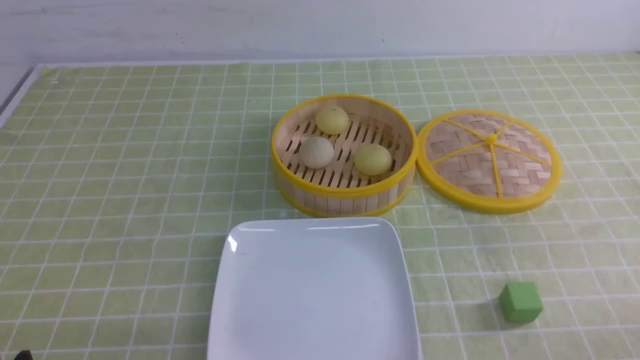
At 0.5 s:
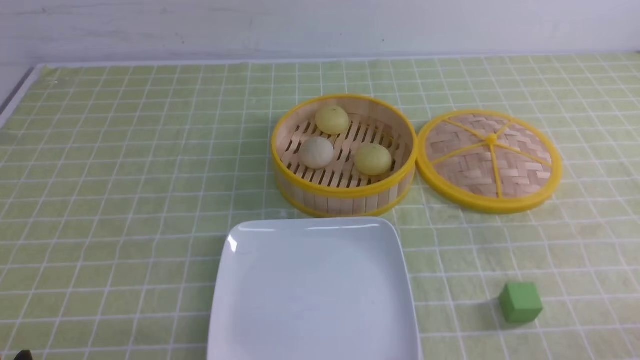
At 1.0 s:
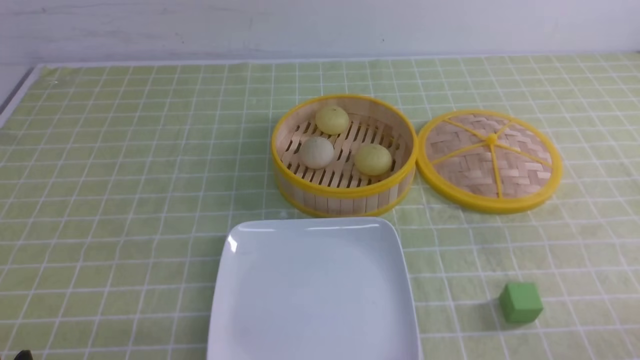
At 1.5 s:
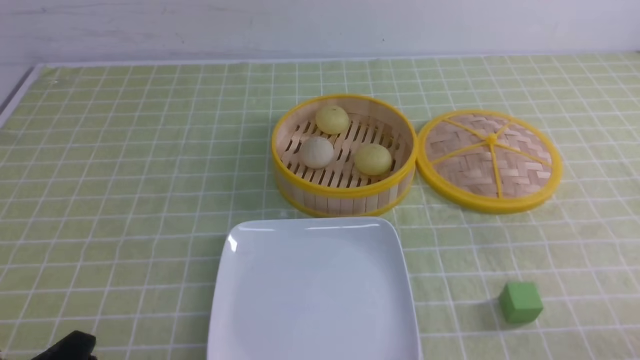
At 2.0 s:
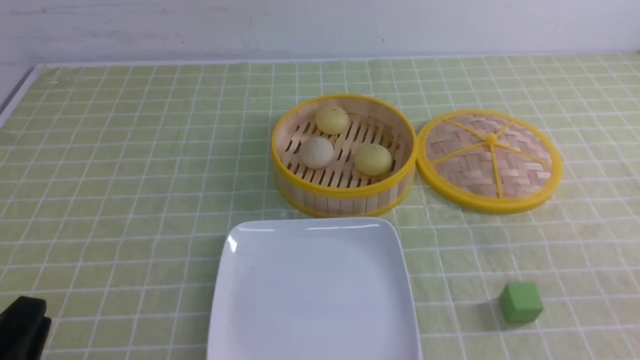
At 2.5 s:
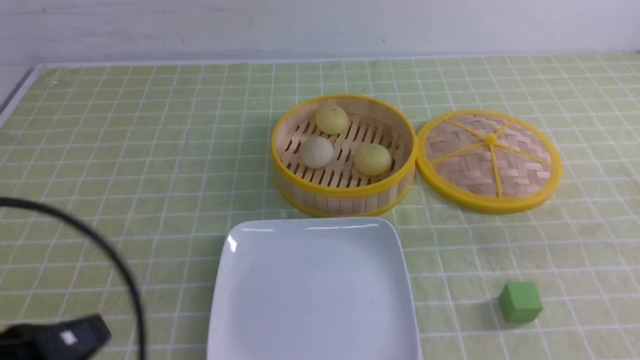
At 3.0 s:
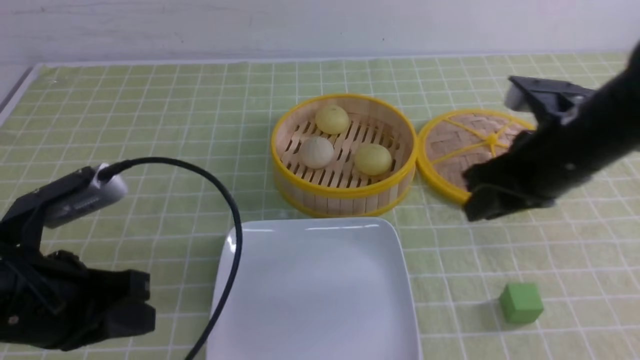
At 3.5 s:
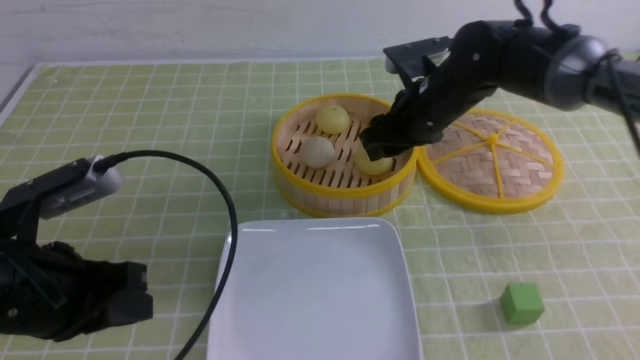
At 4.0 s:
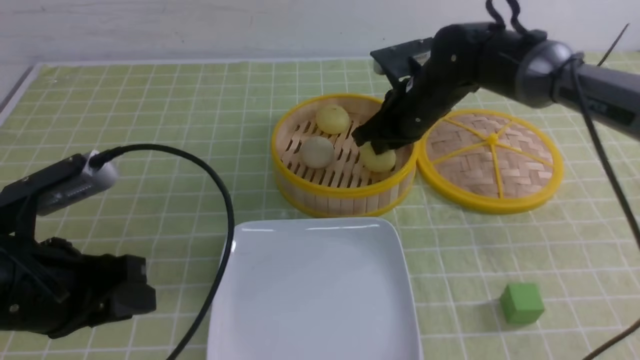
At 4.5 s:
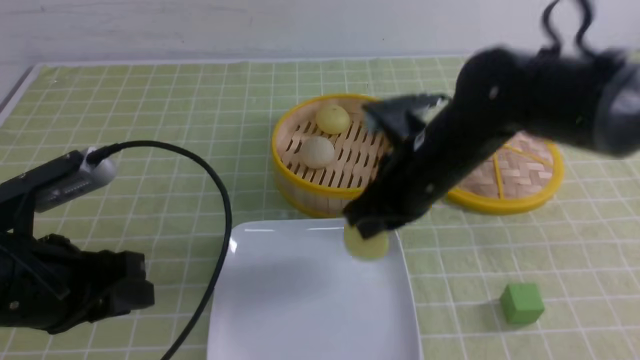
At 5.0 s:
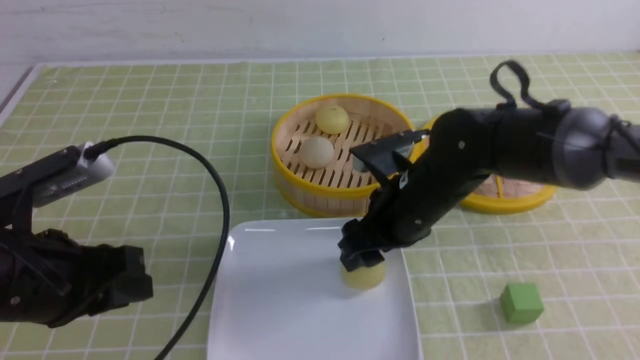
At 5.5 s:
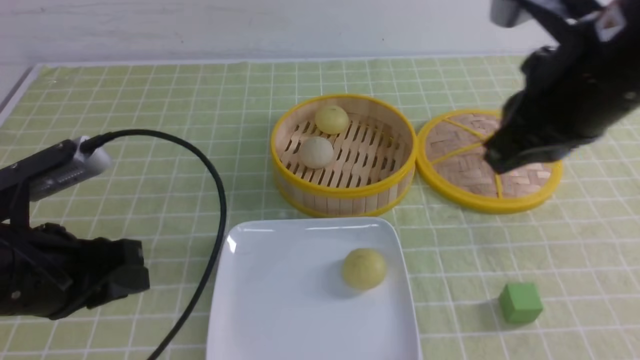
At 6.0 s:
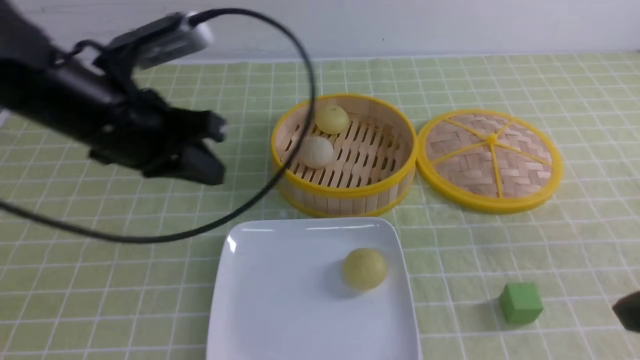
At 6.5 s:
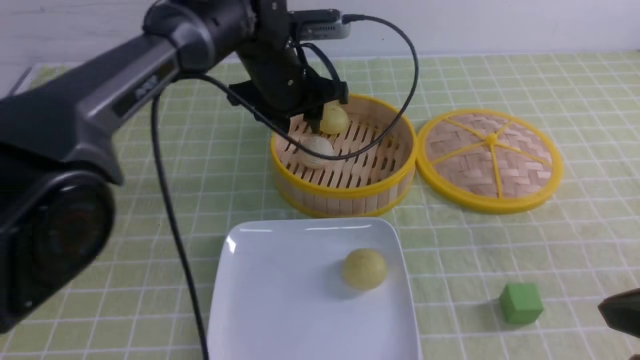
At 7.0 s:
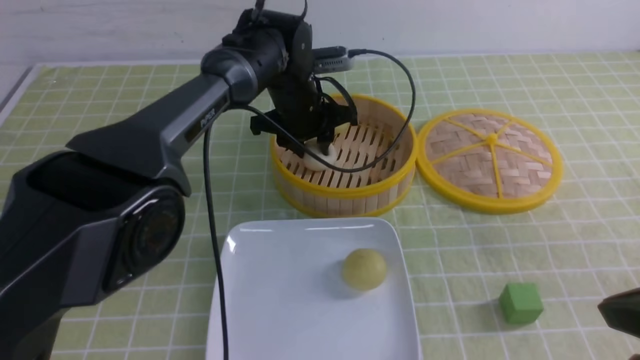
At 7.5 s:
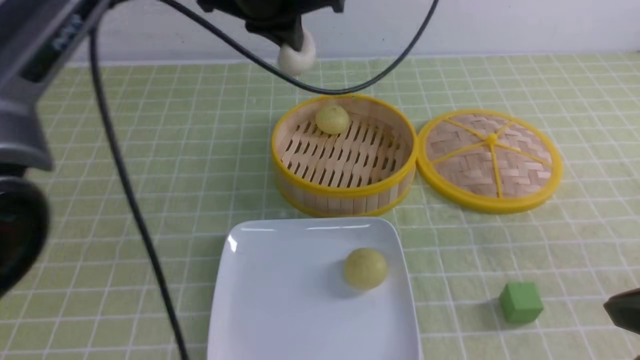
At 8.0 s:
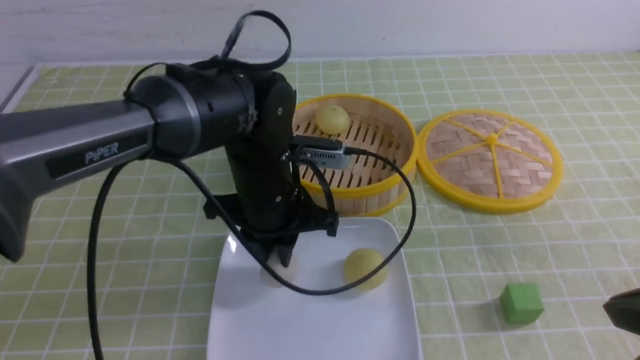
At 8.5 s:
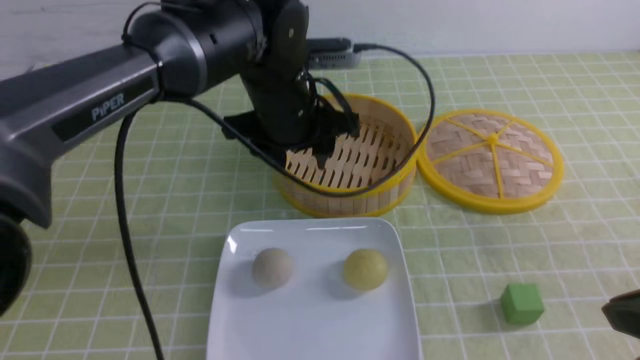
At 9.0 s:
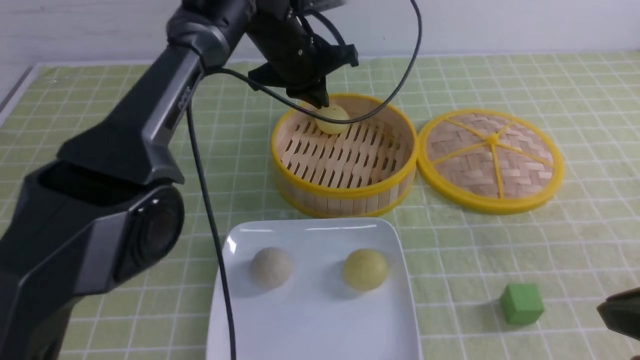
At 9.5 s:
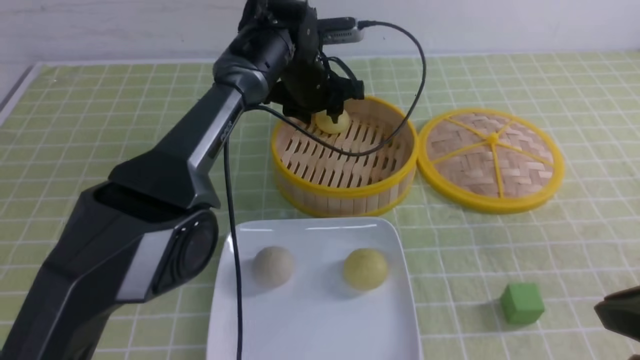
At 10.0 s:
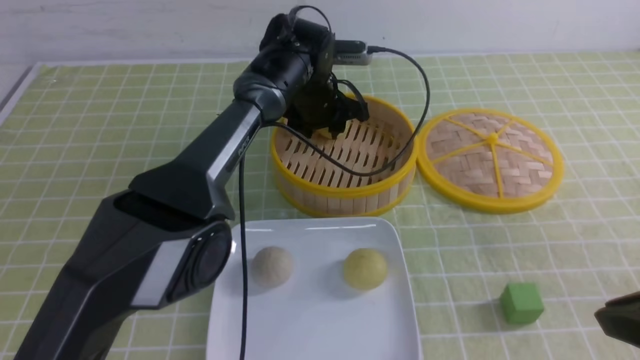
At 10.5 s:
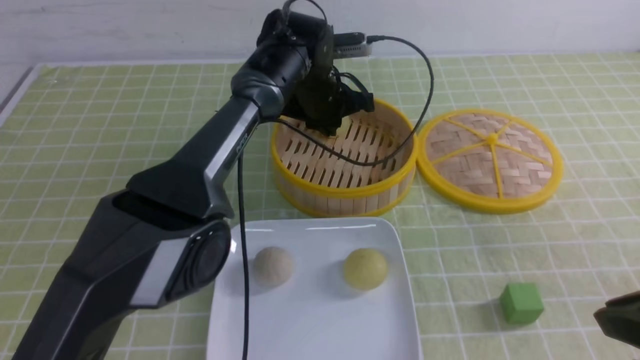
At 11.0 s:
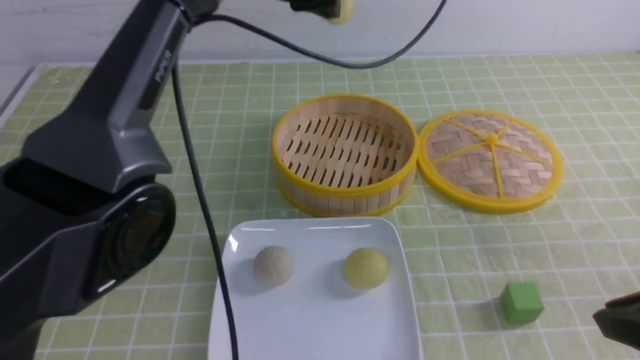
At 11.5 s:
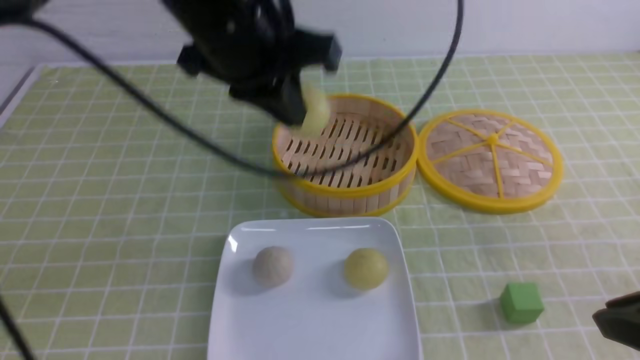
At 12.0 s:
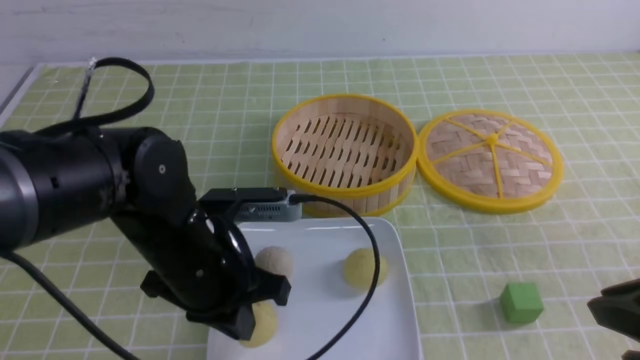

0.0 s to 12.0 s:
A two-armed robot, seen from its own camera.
Step, 0.0 to 3.5 s: use the right arm to grab the steamed stuffed bun that is closest to it.
Step, 4.0 to 4.5 s: use the right arm to put the steamed stuffed bun into the plate.
Step, 5.0 to 7.0 s: use the left arm to grab the steamed stuffed bun that is closest to it.
Step, 7.5 to 8.0 s: use the left arm to put the steamed stuffed bun into the plate.
Step, 8.5 to 10.0 s: use the left arm to grab the steamed stuffed bun that is closest to it.
2.0 to 4.0 s: The right gripper moves forward and to the left, about 40 cm, and opens, then closes once more, while the left gripper heads forward and upward, covering some 15 cm, and closes, then opens again.
4.0 to 6.0 s: The left gripper moves forward, to the right and upward, some 15 cm, and closes up. Meanwhile the right gripper shifts approximately 35 cm backward and to the right, and opens, then closes again.
6.0 to 8.0 s: The left gripper heads to the right and downward, covering about 15 cm, goes forward and returns, about 15 cm each way, and opens its fingers.
8.0 to 10.0 s: The left gripper moves forward, roughly 20 cm.
10.0 to 12.0 s: The left gripper moves backward and to the left, roughly 30 cm, and closes up.

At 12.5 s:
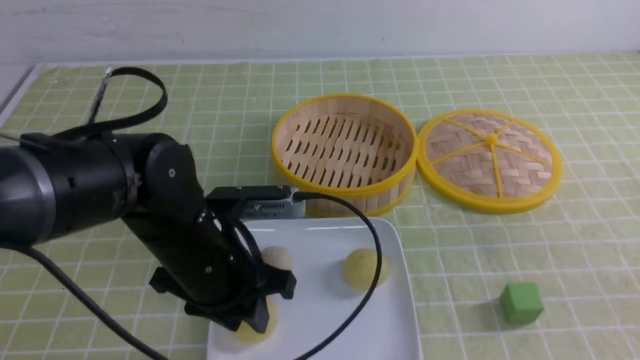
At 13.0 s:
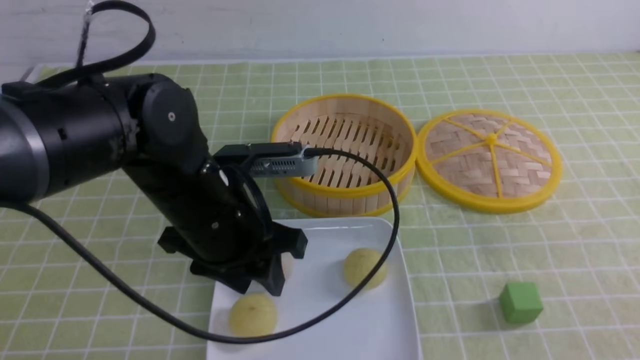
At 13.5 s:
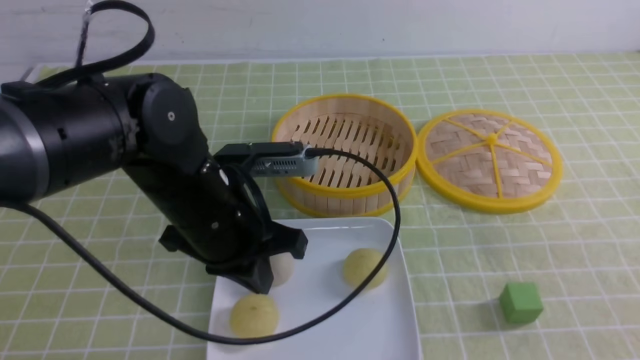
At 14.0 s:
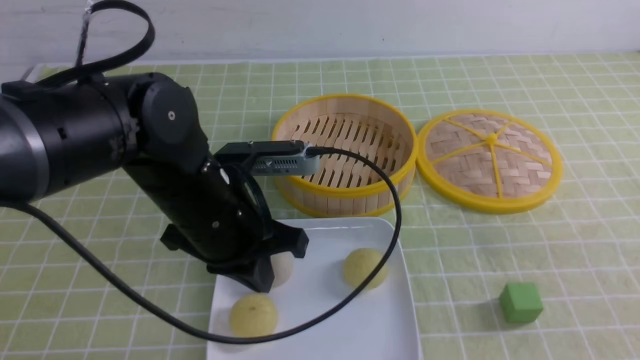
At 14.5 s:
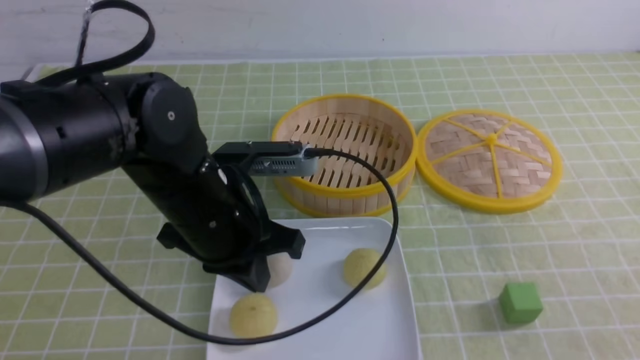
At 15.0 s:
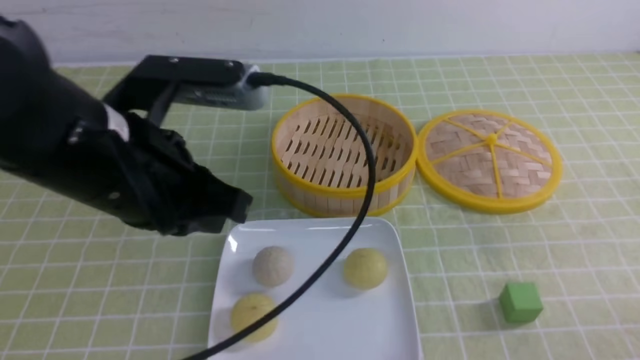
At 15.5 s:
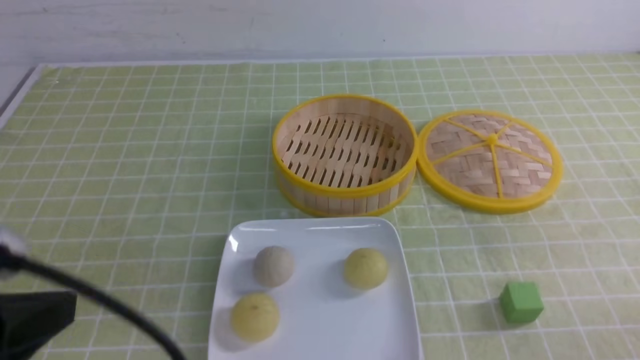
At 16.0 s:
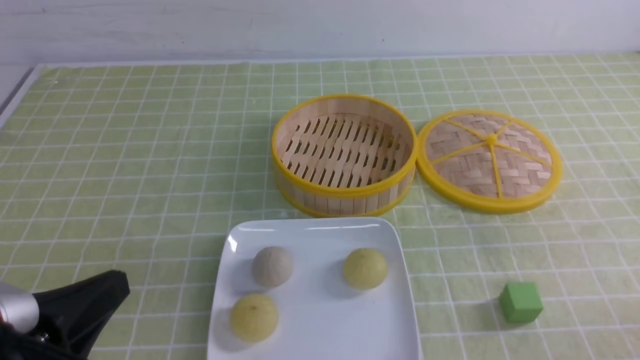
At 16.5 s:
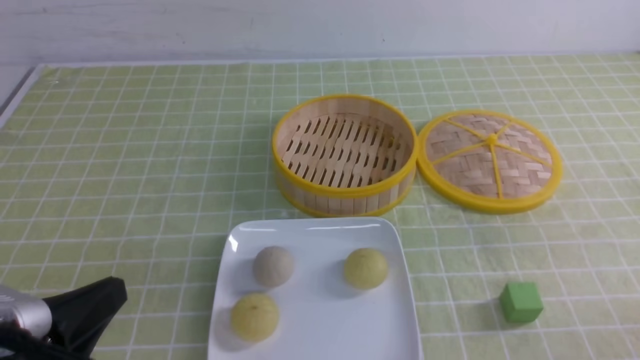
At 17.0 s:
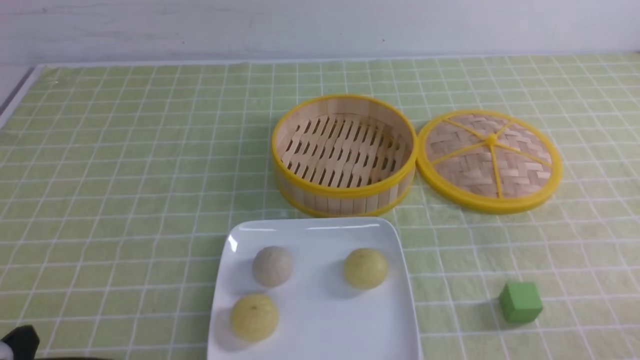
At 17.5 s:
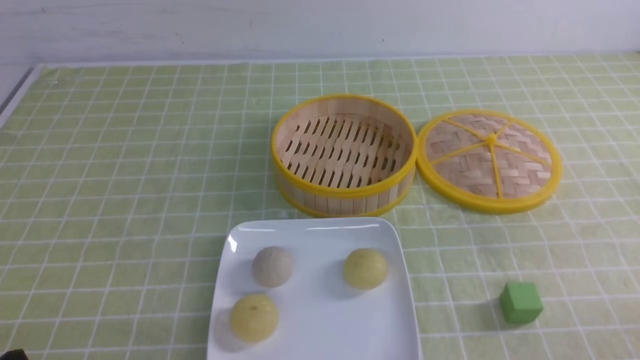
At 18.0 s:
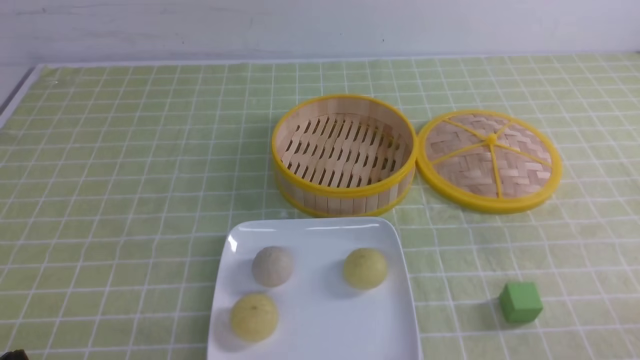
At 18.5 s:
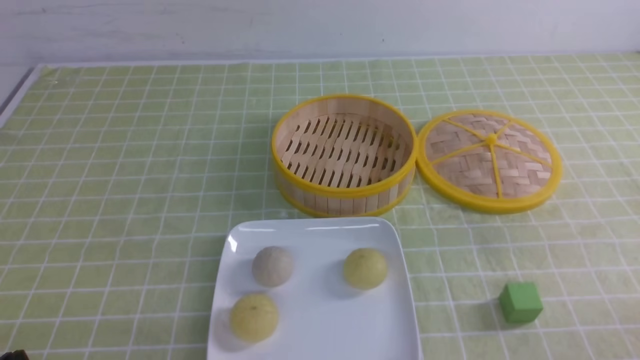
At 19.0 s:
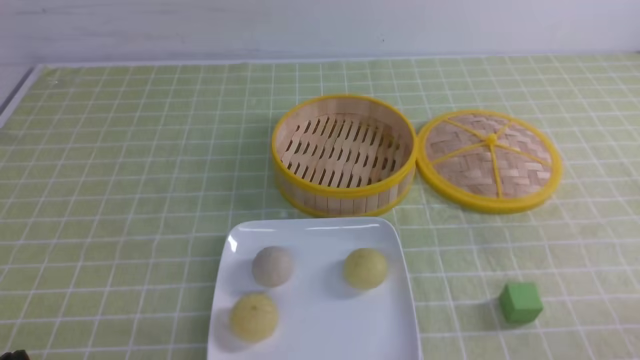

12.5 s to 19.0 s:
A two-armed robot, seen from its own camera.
12.5 to 14.5 s: The left gripper closes; the right gripper heads downward, covering roughly 10 cm.
14.5 to 17.0 s: The right gripper moves downward, approximately 5 cm. The left gripper goes about 25 cm backward and to the left.
